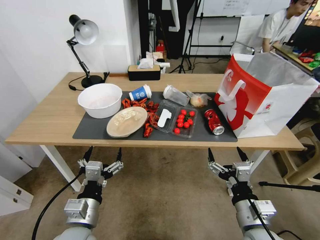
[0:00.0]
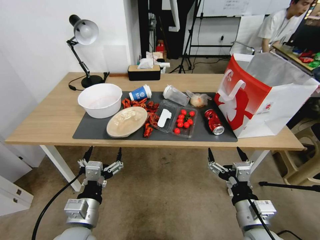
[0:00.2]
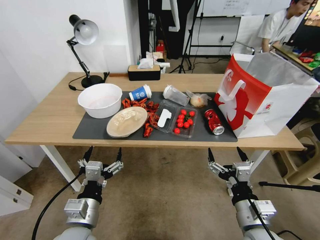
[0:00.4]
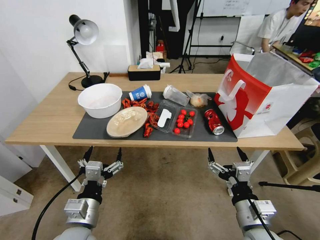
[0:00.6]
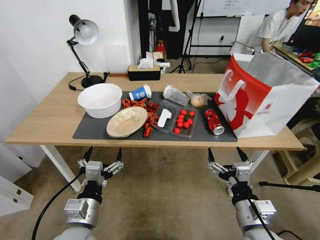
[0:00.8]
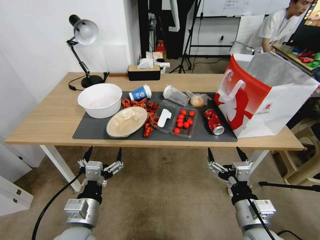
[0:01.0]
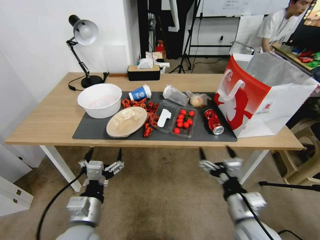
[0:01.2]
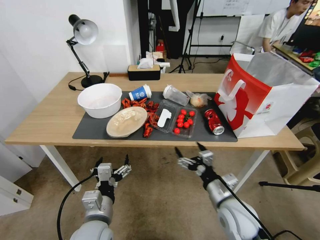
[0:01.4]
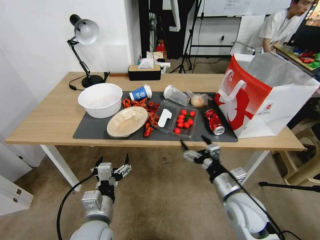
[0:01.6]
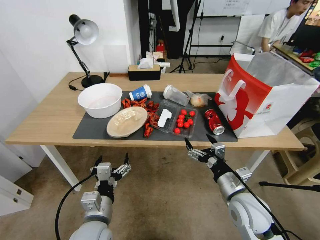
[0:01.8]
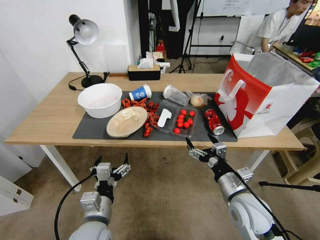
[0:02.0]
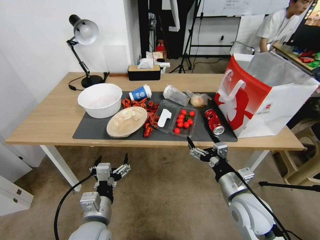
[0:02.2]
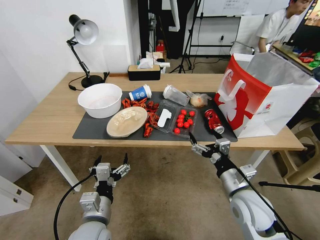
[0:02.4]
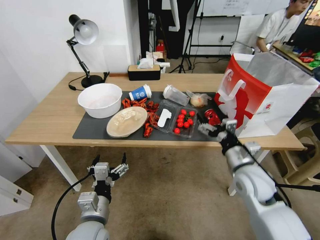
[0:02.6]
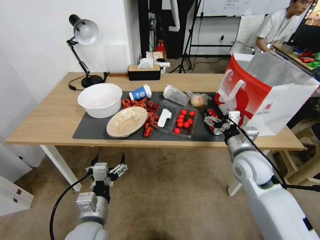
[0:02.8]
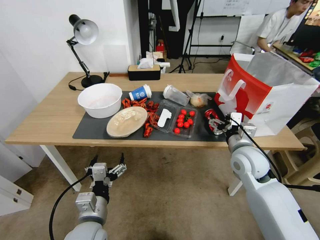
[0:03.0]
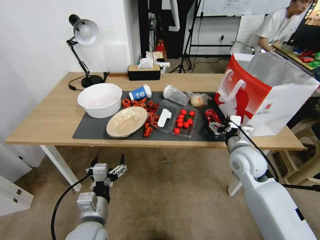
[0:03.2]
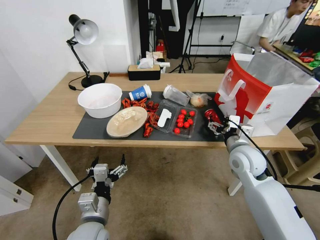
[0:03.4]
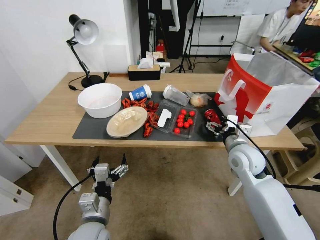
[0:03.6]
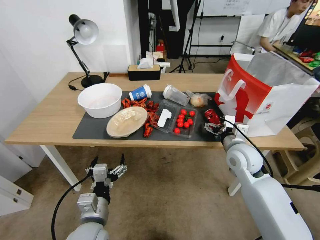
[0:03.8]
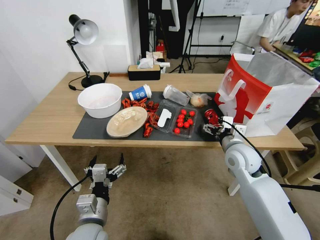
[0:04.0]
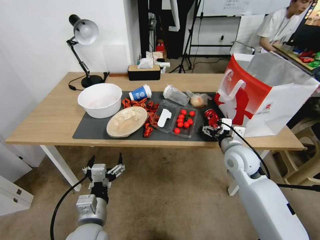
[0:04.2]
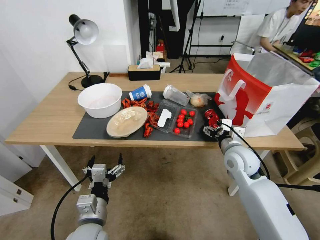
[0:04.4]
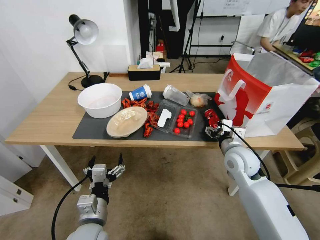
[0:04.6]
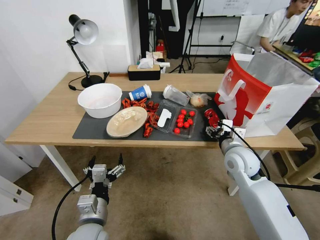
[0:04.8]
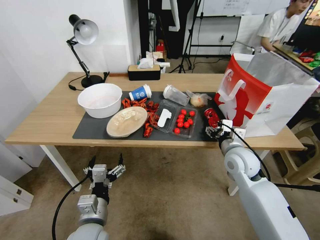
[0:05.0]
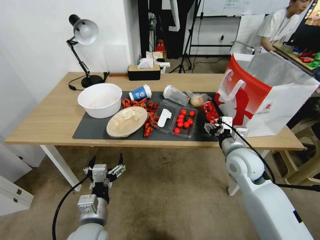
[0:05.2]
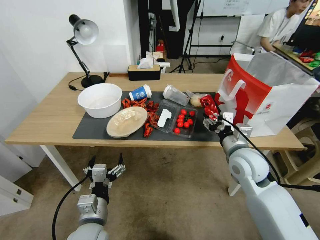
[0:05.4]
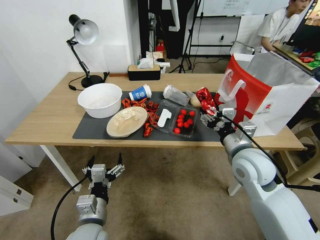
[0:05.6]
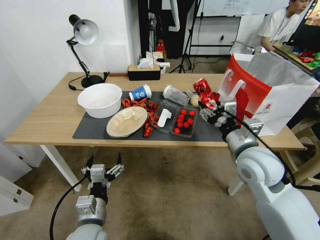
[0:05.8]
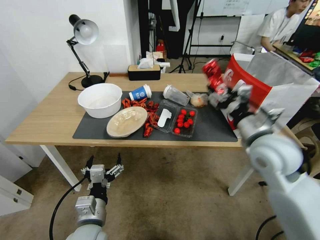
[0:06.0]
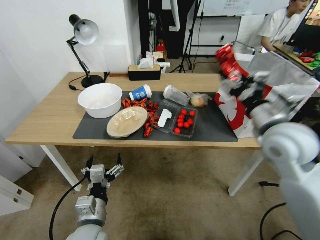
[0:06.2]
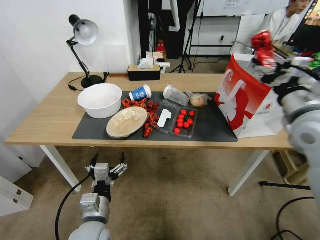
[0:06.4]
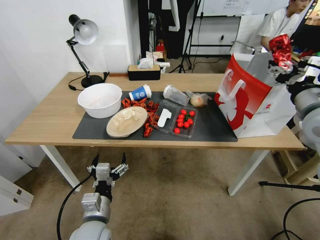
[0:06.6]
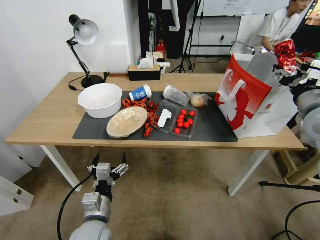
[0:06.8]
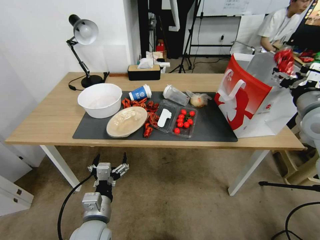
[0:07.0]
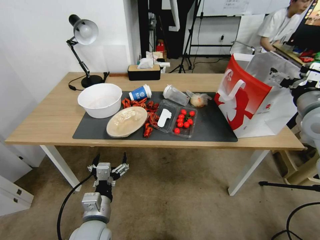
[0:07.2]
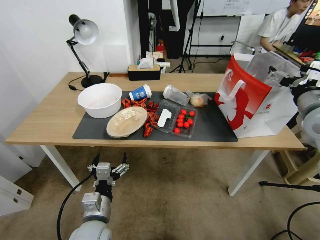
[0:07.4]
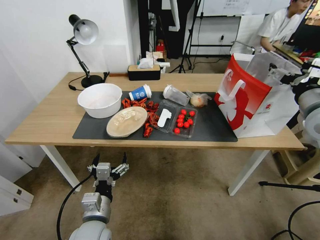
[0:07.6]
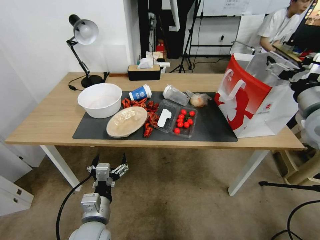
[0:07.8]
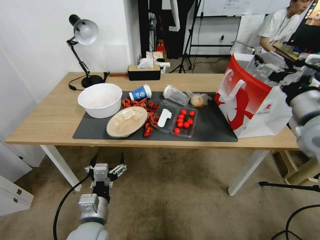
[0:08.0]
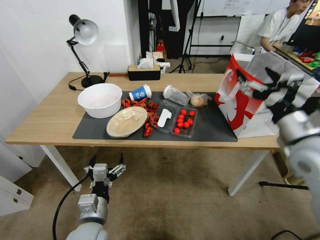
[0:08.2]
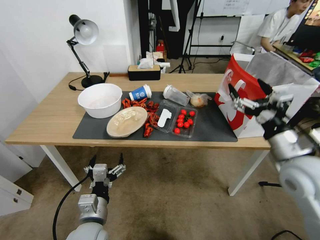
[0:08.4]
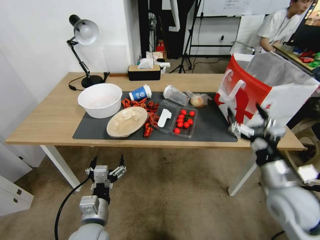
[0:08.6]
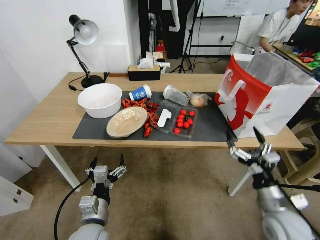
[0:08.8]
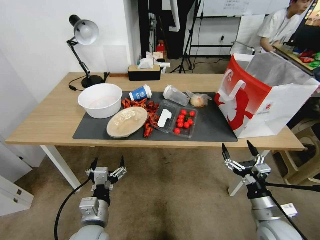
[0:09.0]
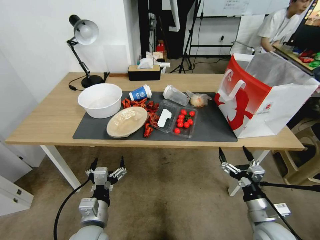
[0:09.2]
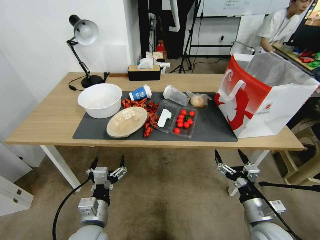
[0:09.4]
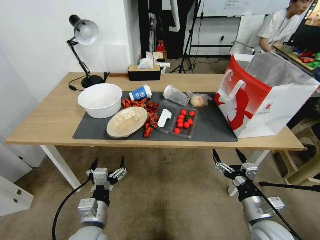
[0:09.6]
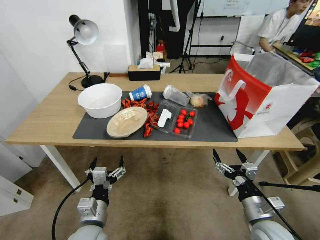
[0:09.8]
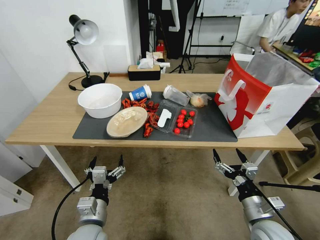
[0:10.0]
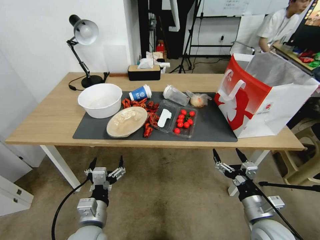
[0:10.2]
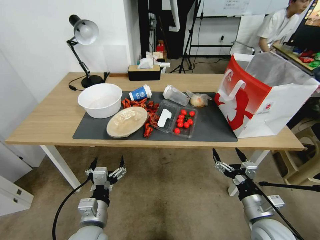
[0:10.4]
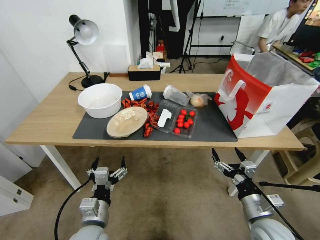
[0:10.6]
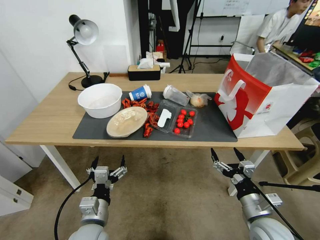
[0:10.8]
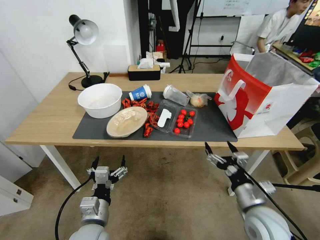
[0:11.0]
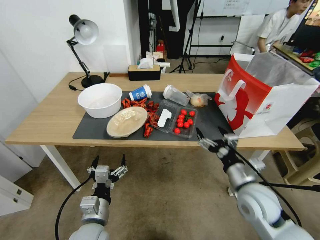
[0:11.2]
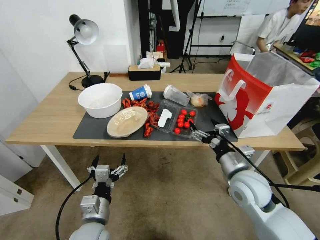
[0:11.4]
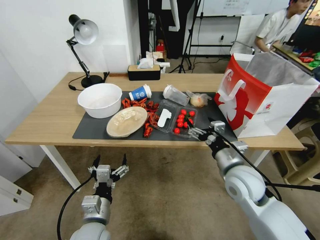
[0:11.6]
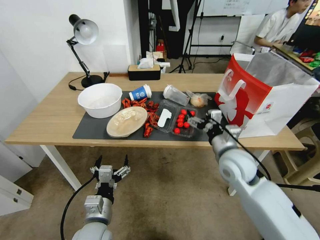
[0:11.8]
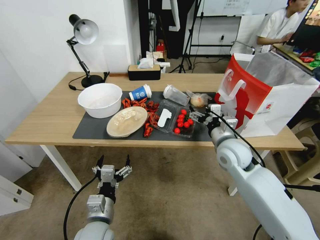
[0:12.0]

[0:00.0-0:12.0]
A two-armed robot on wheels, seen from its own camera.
0:01.6 to 0:03.0: The right gripper goes approximately 15 cm forward and upward.
0:03.0 to 0:04.4: The grippers make only small movements.
0:04.4 to 0:06.0: The right gripper is displaced upward and backward by approximately 10 cm.
0:06.0 to 0:07.6: The right gripper moves to the right and upward, roughly 15 cm, and opens up.
0:07.6 to 0:09.0: The right gripper is displaced downward and backward by some 35 cm.
0:09.0 to 0:10.4: The grippers move only a little.
0:10.4 to 0:12.0: The right gripper shifts approximately 20 cm forward and upward.

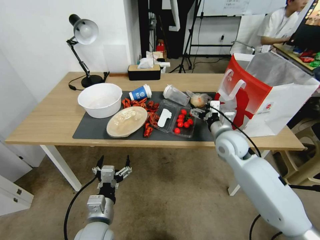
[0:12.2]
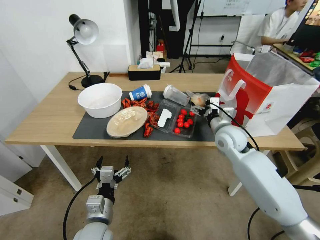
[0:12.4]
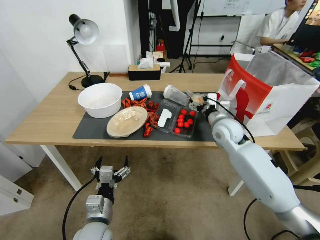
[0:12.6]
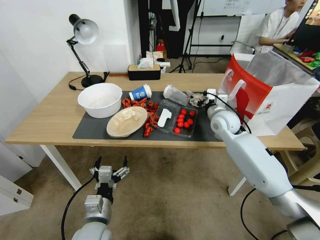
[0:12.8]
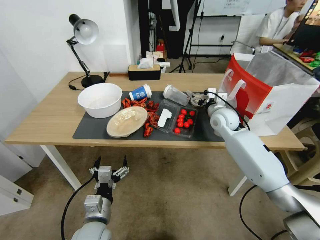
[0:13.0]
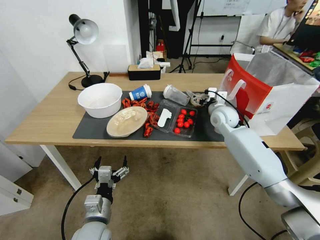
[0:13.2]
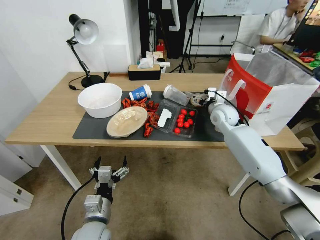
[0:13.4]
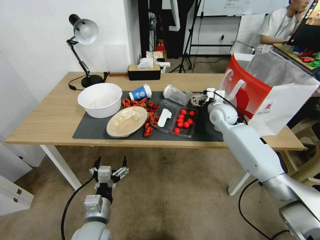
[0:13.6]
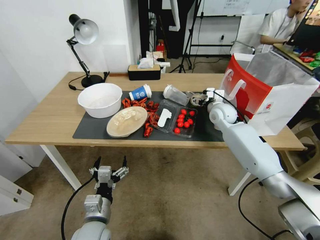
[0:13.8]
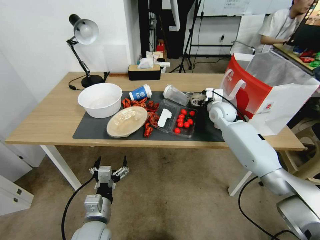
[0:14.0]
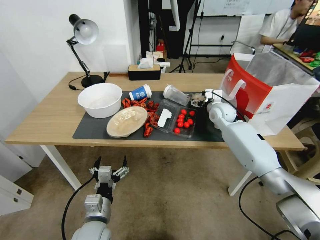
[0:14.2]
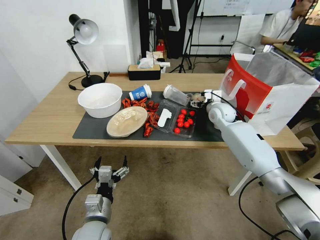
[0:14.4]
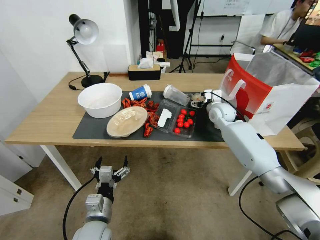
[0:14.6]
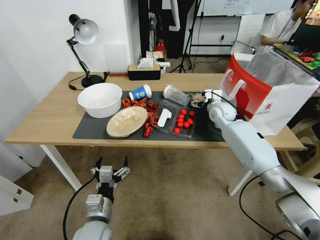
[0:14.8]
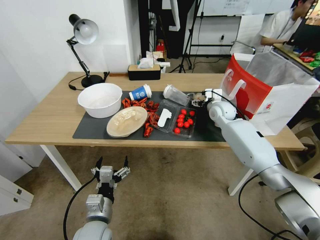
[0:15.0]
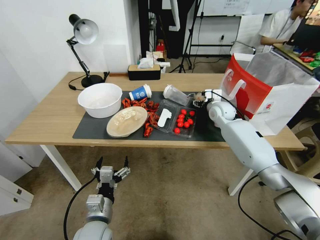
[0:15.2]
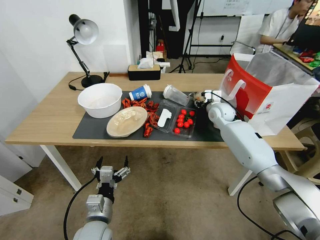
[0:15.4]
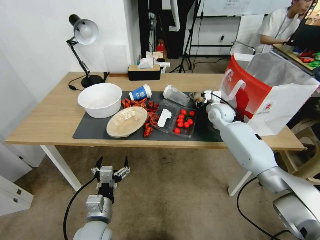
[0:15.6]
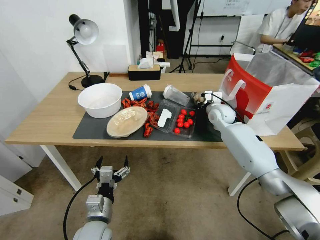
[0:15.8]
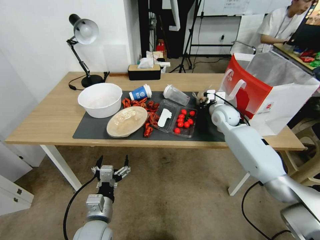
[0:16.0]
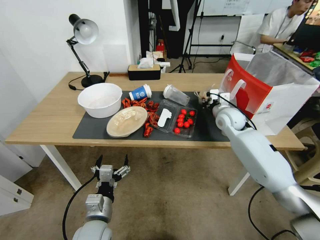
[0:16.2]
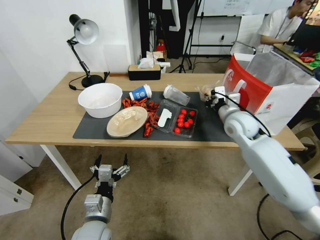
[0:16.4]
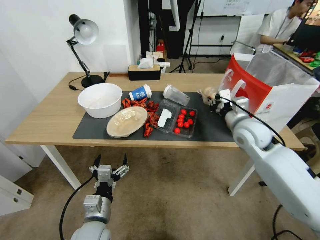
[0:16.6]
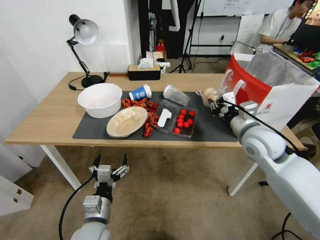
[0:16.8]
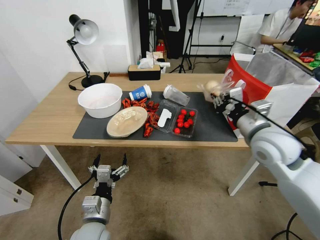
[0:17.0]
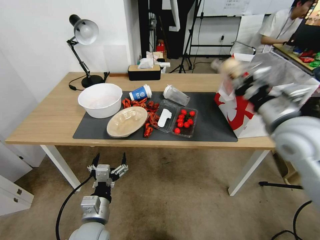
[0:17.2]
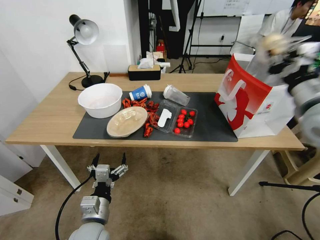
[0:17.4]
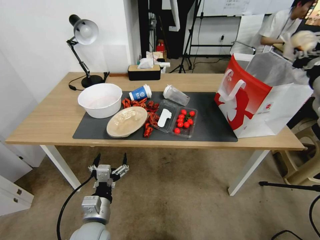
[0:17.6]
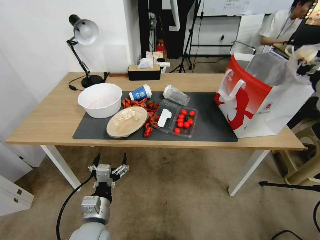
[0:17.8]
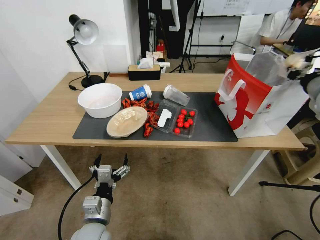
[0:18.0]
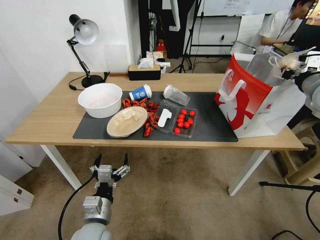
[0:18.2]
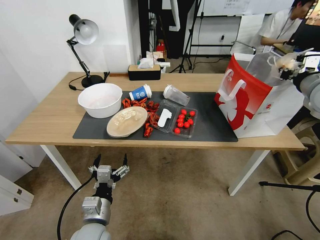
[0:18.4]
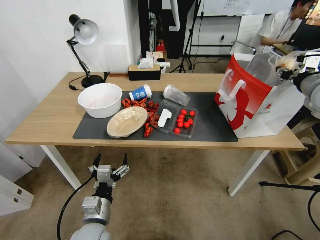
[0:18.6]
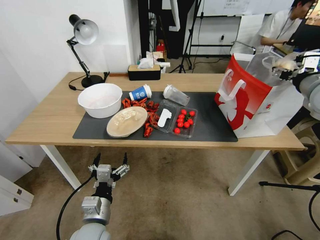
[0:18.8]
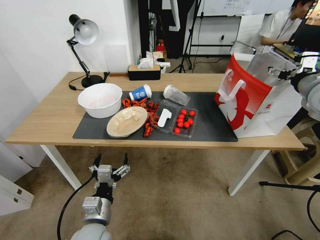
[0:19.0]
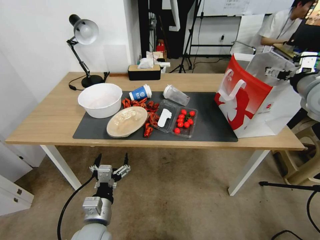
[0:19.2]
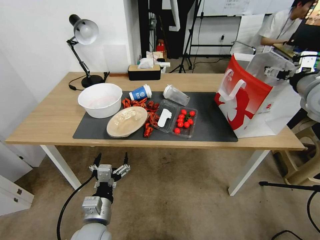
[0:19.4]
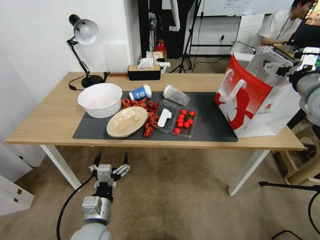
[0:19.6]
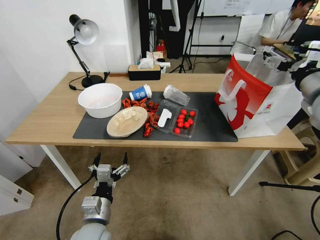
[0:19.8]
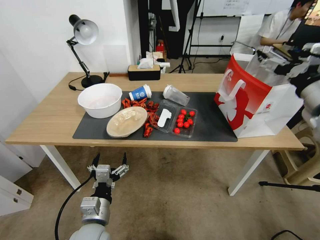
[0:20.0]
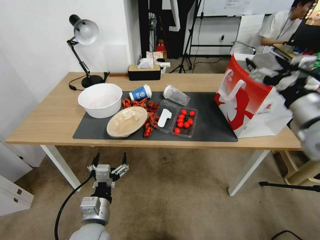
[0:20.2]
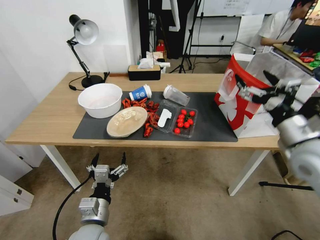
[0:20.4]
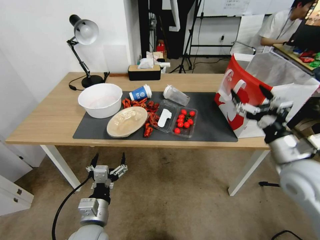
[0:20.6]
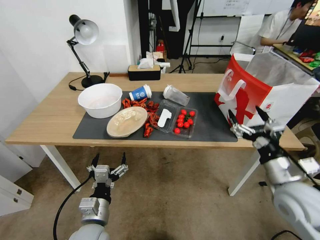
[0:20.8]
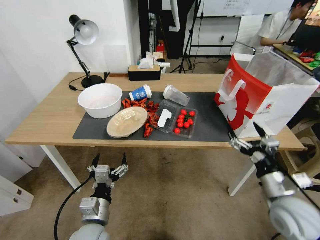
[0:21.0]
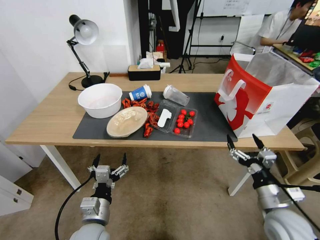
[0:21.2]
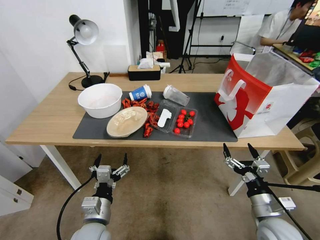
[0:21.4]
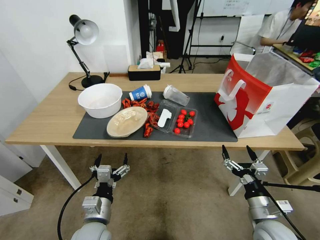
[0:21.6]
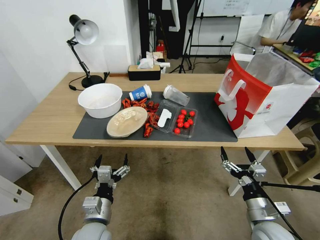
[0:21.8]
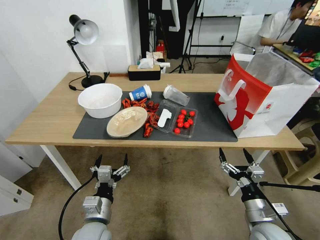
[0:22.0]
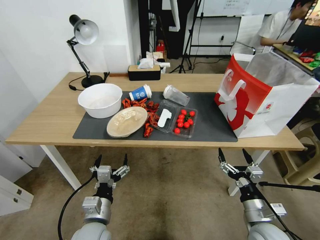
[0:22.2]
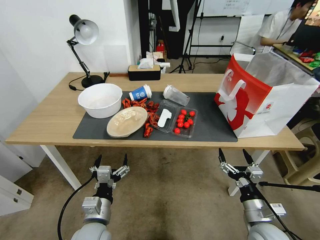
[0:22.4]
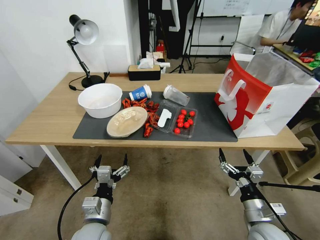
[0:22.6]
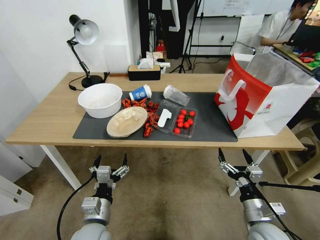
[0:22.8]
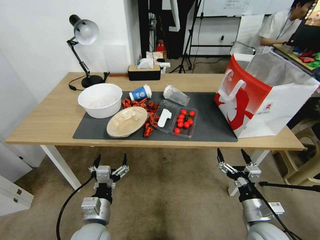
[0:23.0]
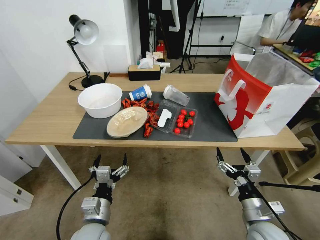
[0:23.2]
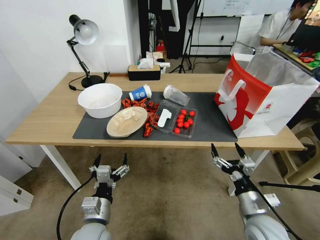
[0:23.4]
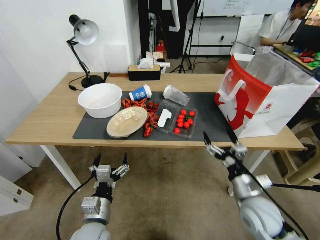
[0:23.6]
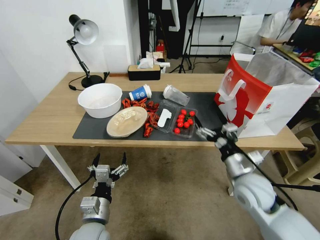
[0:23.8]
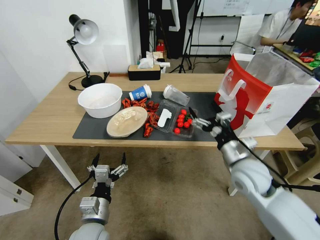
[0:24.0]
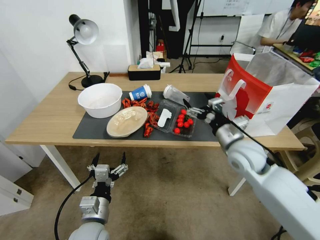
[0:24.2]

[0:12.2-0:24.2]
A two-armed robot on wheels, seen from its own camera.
0:12.2 to 0:13.8: The right gripper travels forward by roughly 15 cm.
0:13.8 to 0:15.2: The grippers make only small movements.
0:15.2 to 0:16.6: The right gripper moves backward and upward, some 15 cm, and closes its fingers.
0:16.6 to 0:18.2: The right gripper goes roughly 20 cm upward and to the right.
0:18.2 to 0:19.8: The right gripper is displaced backward by roughly 5 cm, and opens.
0:19.8 to 0:21.2: The right gripper shifts approximately 35 cm downward and backward.
0:21.2 to 0:22.6: The right gripper is displaced downward by approximately 5 cm.
0:22.6 to 0:24.2: The right gripper heads forward and upward, covering about 25 cm.
